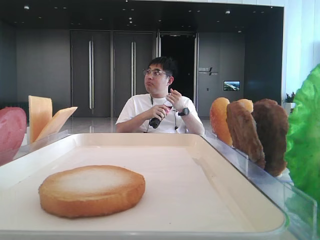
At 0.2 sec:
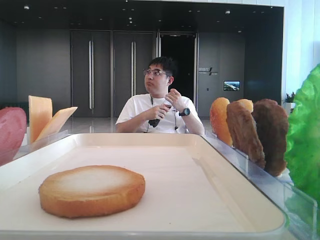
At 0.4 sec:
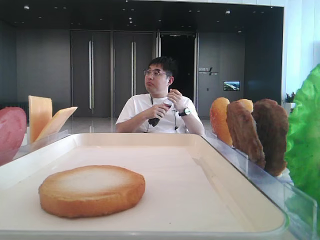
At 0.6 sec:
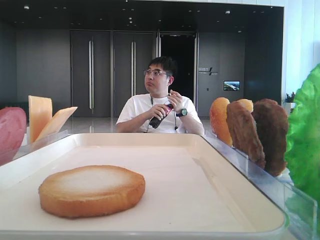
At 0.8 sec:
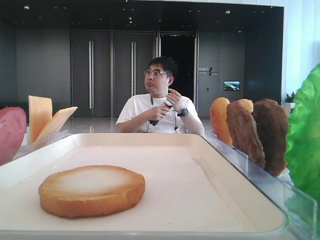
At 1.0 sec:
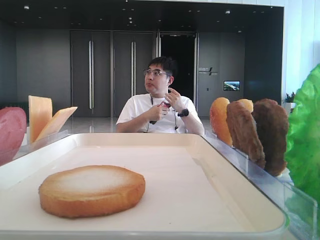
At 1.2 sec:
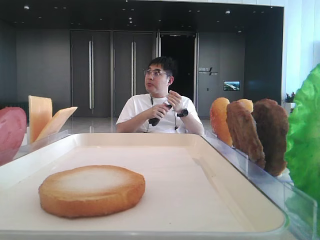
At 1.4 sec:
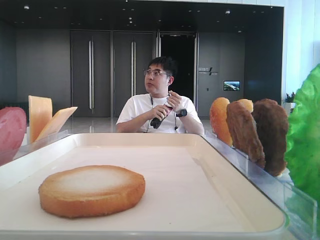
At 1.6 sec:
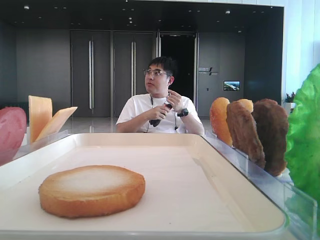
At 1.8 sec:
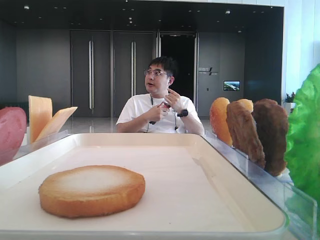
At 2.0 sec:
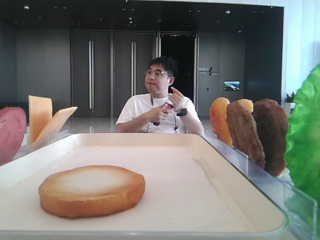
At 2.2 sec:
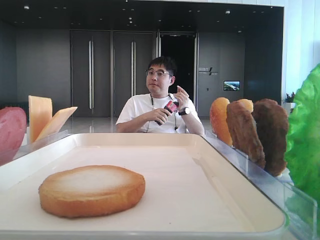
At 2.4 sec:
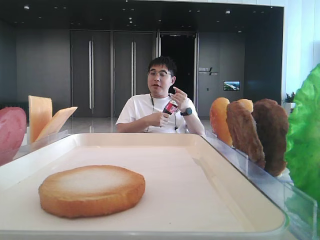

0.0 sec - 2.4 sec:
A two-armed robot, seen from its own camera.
1.2 sec - 2.4 sec: The two grippers keep their place.
